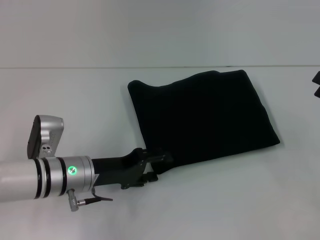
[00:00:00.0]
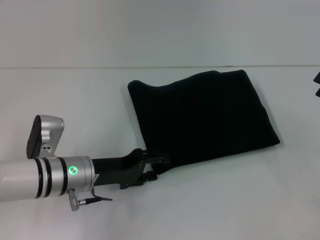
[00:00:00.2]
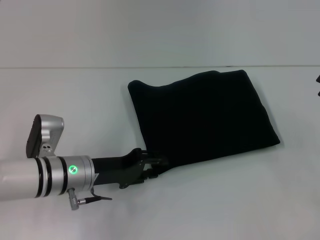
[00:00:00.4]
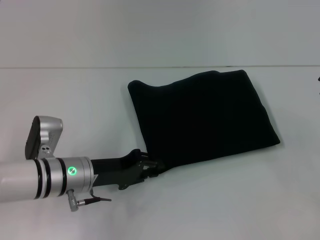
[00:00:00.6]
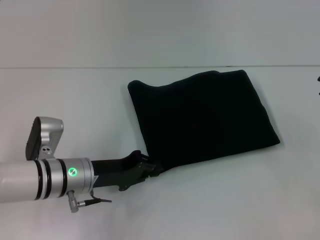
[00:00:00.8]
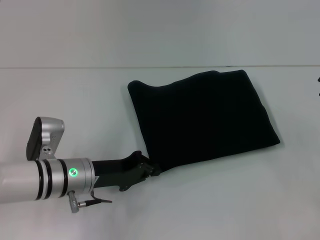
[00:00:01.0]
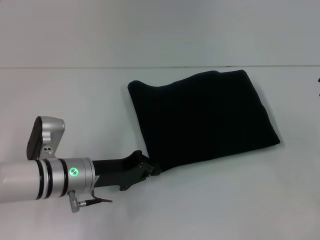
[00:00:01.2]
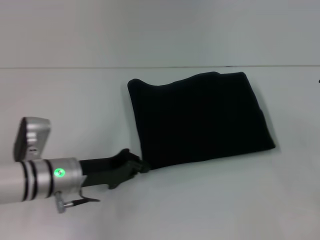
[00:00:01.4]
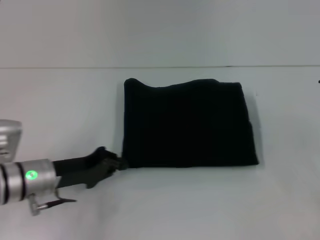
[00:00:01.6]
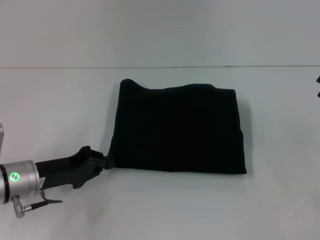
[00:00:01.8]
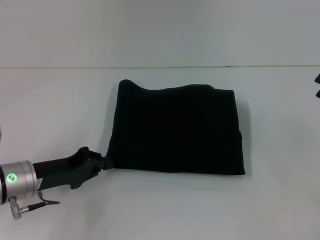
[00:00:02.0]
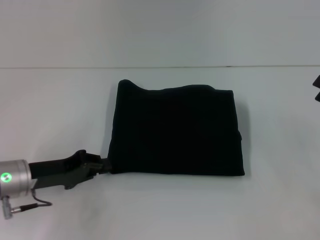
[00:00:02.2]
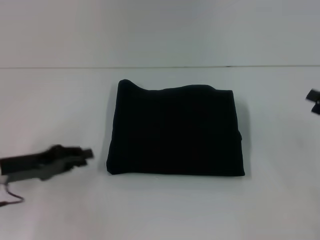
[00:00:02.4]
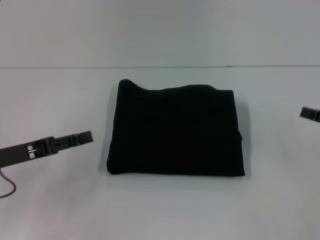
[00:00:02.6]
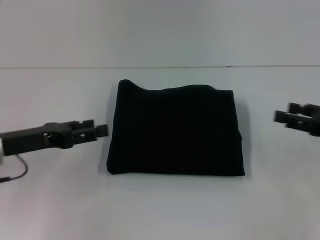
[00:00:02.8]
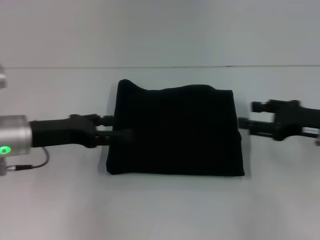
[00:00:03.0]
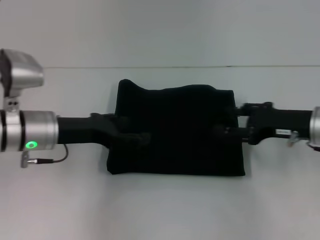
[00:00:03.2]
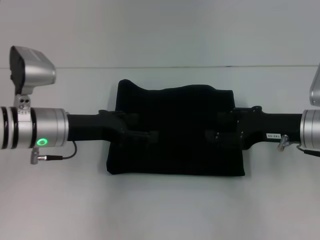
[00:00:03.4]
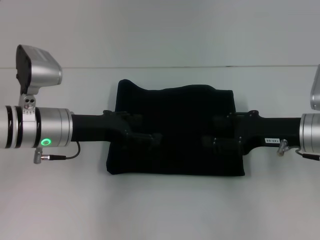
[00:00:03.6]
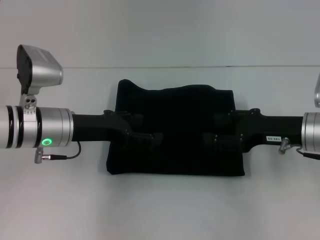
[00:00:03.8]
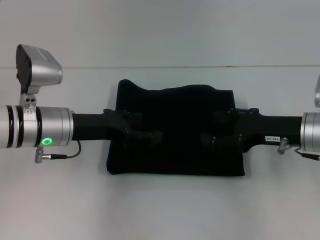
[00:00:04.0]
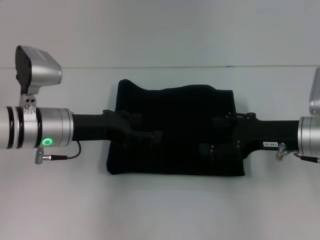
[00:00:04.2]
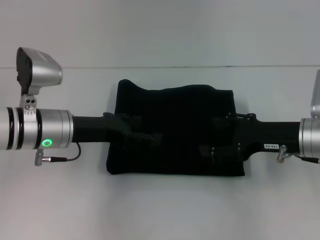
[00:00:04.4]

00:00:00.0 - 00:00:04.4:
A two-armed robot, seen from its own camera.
00:00:00.0 - 00:00:01.4: The left gripper closes.
00:00:01.4 - 00:00:03.0: The right gripper is displaced to the left by some 10 cm; the left gripper heads upward and to the left, covering approximately 10 cm, and opens.
00:00:03.0 - 00:00:04.4: The right gripper travels to the left by about 5 cm. Meanwhile the left gripper is displaced to the right by about 5 cm.
